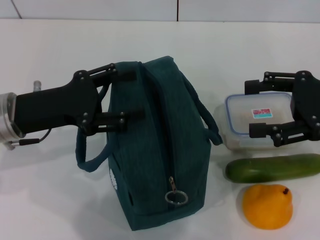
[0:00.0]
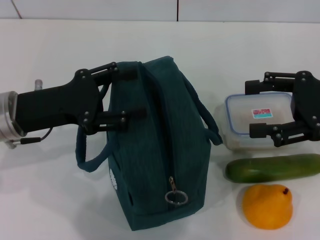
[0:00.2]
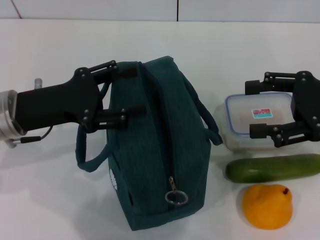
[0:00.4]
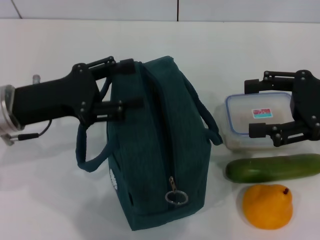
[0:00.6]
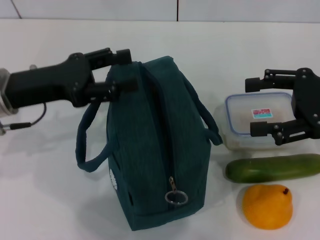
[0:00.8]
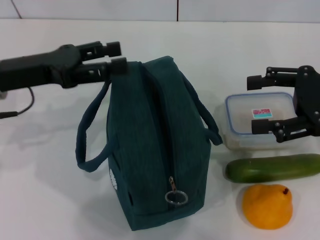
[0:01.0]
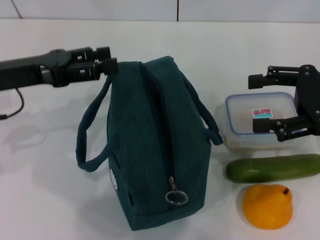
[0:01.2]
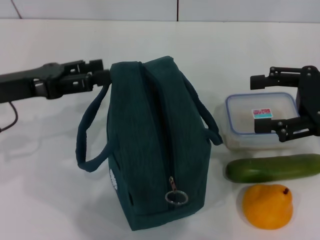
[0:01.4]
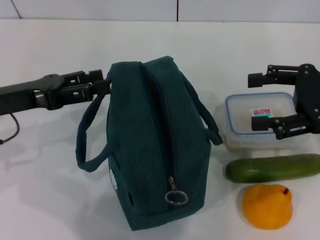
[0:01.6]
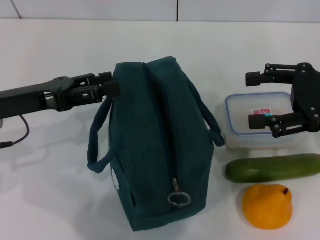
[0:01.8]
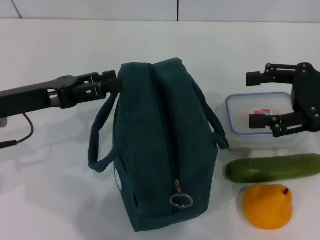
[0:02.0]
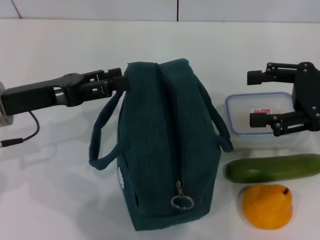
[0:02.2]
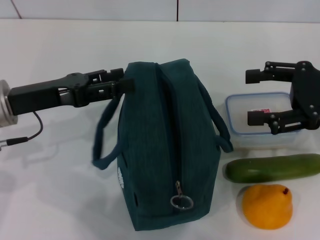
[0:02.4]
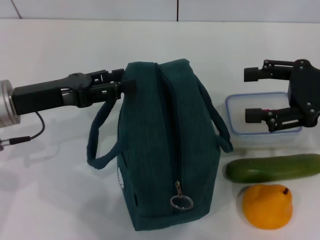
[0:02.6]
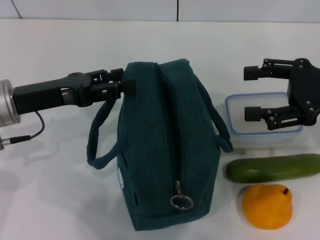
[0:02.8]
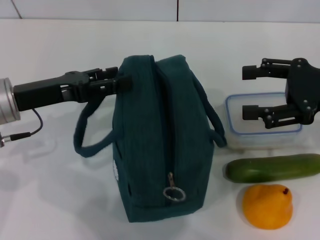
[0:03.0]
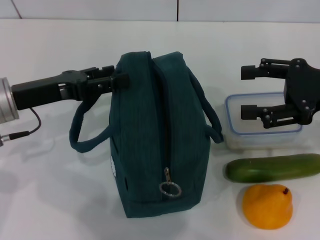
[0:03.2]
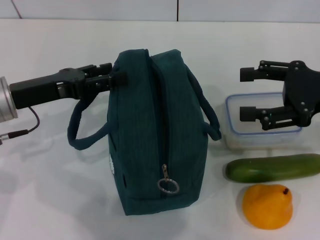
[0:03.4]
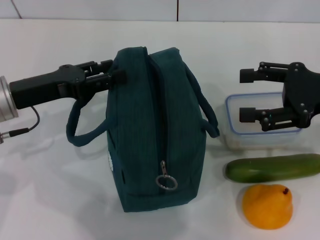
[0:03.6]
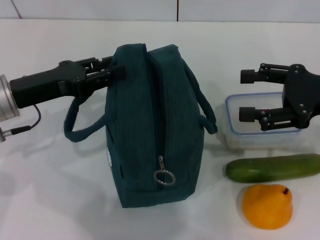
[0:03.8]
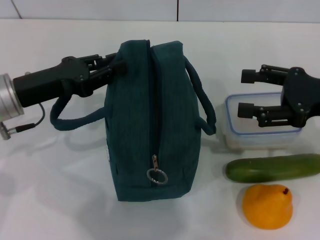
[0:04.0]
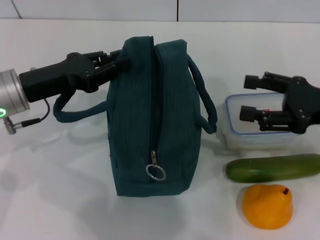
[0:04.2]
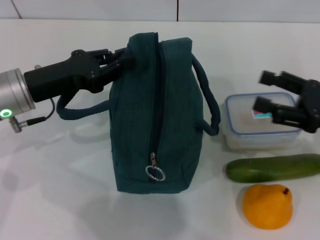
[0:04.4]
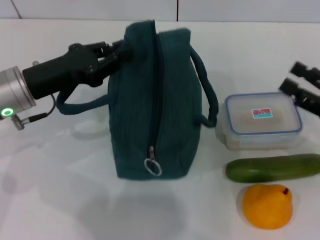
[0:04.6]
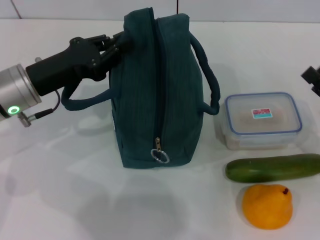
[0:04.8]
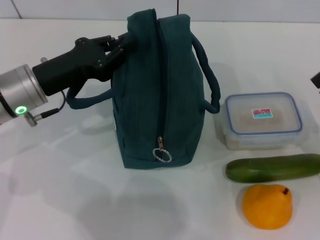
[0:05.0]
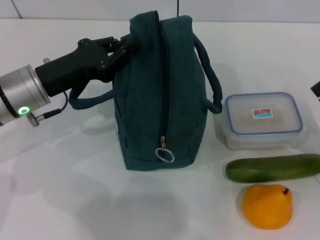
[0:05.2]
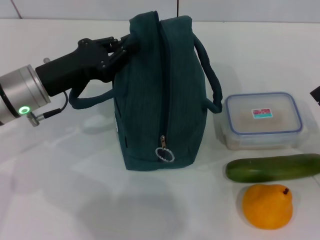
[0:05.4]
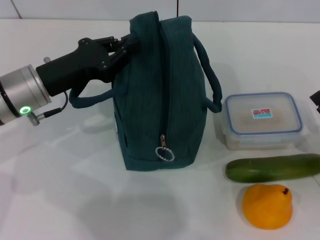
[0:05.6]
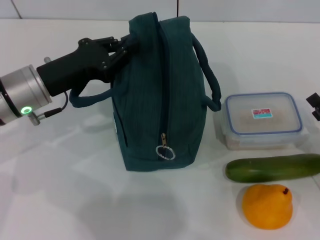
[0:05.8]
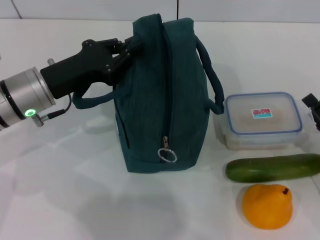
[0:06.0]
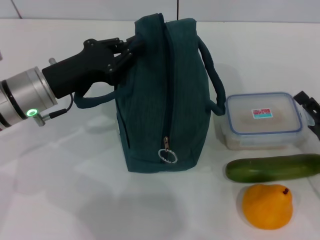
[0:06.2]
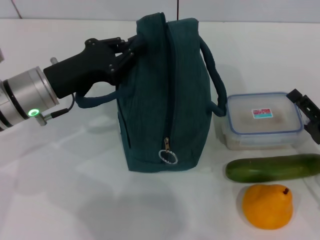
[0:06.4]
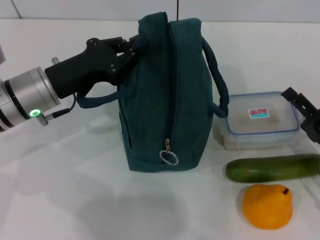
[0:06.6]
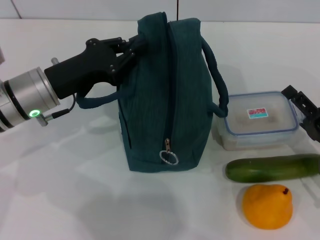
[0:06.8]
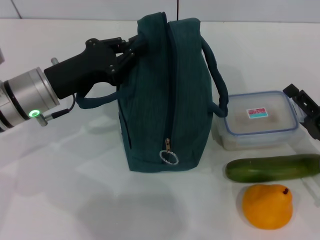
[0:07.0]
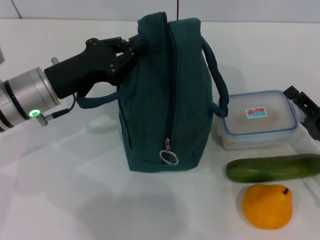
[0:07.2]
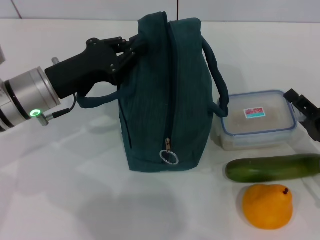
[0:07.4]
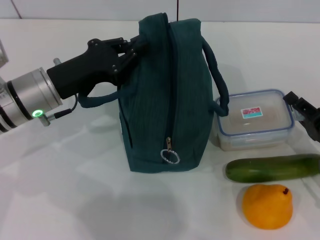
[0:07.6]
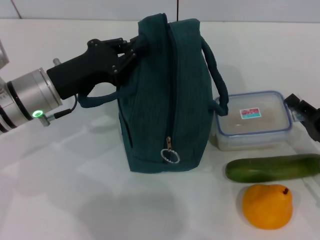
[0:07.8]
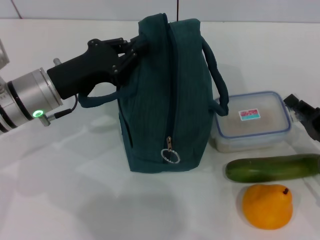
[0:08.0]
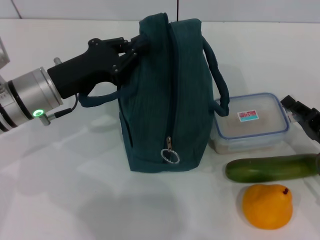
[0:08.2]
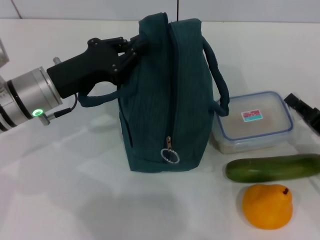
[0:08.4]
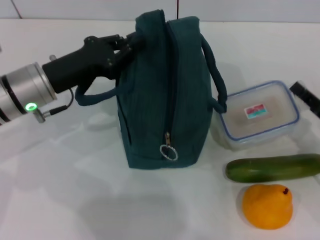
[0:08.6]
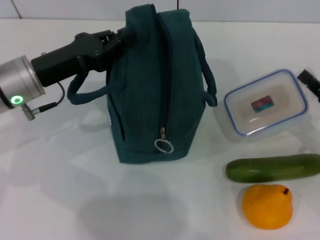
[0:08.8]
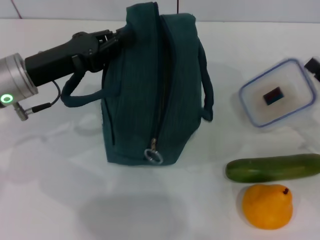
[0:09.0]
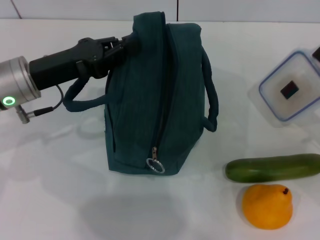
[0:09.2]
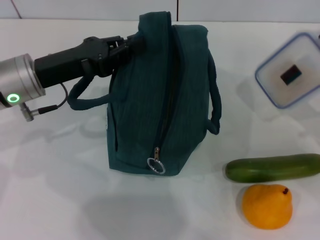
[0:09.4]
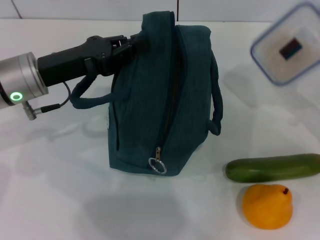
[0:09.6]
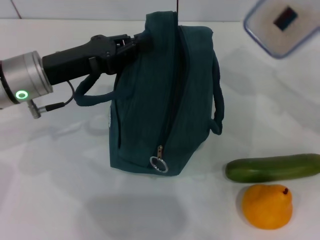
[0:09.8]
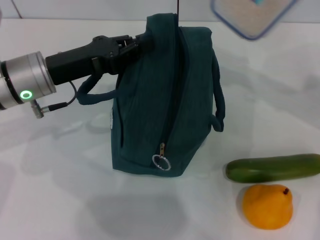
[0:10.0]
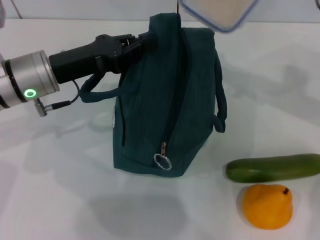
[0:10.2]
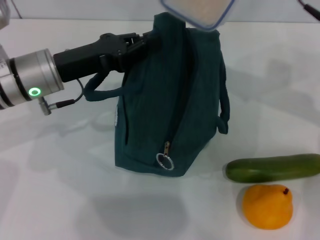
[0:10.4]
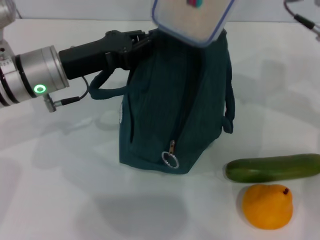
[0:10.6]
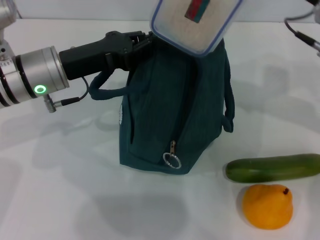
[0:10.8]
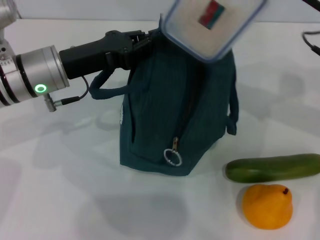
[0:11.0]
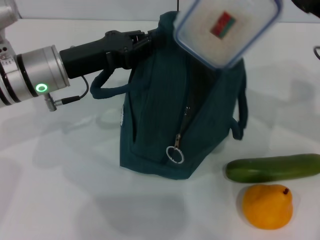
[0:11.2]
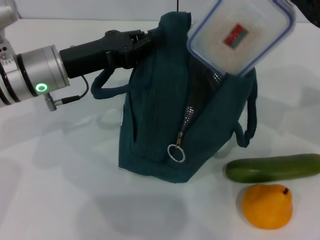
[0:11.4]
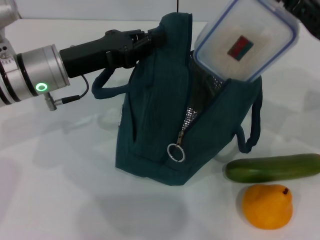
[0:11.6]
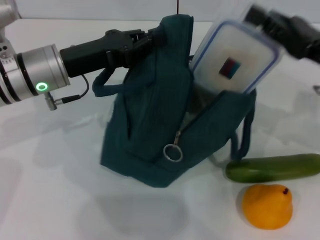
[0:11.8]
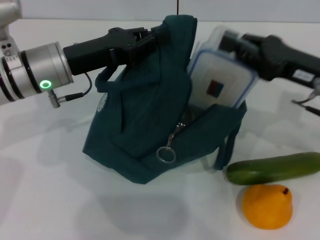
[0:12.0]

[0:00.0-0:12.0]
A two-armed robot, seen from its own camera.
Step, 0:00.0 to 0:04.2: Hold the lunch bag with your left hand.
Step, 0:04.4 to 0:08.0: Pick up the lunch box with your right hand.
0:01.6 to 0:03.0: The grippers move only a little.
0:03.0 to 0:04.4: The left gripper closes its fingers. Meanwhile the right gripper moves downward, roughly 5 cm.
0:04.4 to 0:06.0: The right gripper is displaced downward and backward by roughly 10 cm.
0:06.0 to 0:07.6: The right gripper closes its fingers.
0:07.6 to 0:09.0: The right gripper shifts by approximately 5 cm, and closes up.
0:09.0 to 0:10.4: The right gripper travels upward, to the left and forward by some 25 cm.
0:10.4 to 0:12.0: The right gripper shifts approximately 10 cm downward and backward.

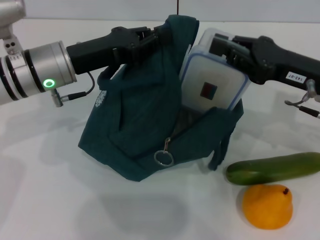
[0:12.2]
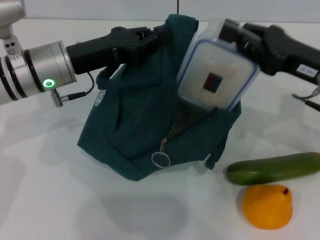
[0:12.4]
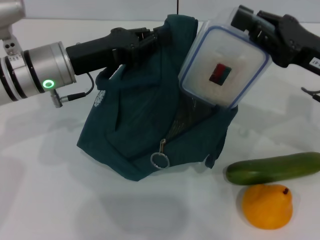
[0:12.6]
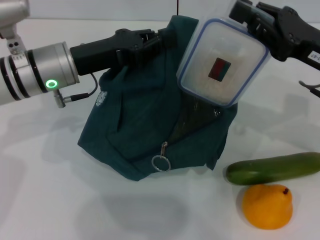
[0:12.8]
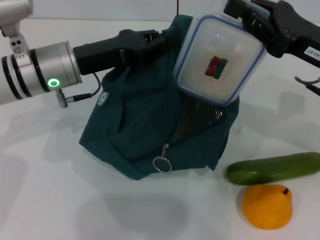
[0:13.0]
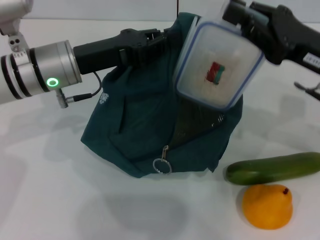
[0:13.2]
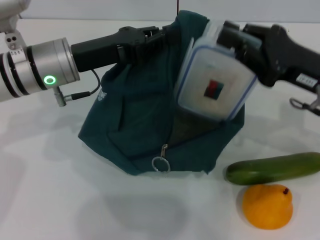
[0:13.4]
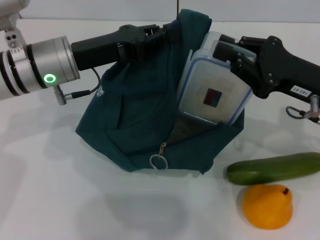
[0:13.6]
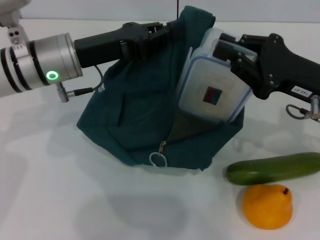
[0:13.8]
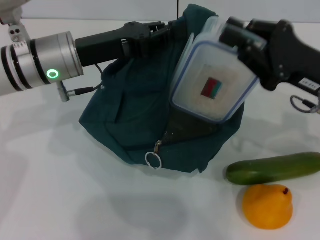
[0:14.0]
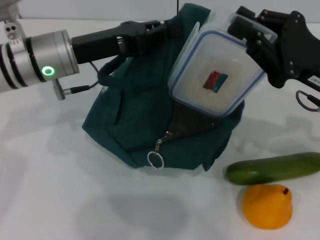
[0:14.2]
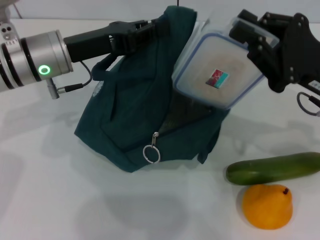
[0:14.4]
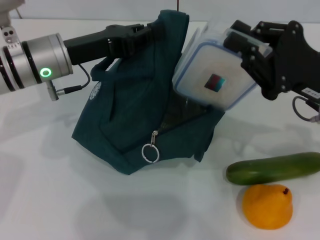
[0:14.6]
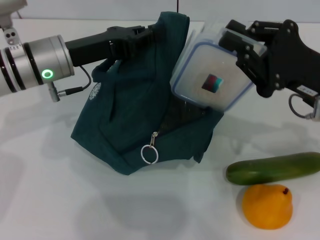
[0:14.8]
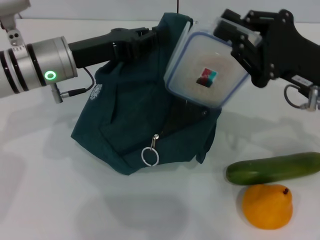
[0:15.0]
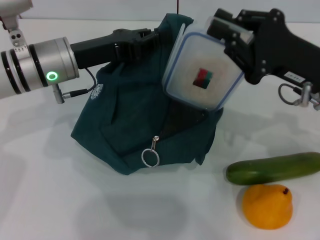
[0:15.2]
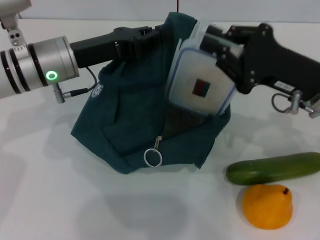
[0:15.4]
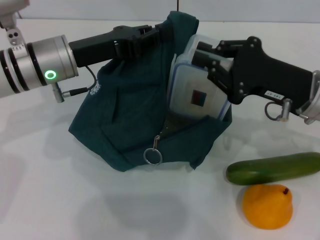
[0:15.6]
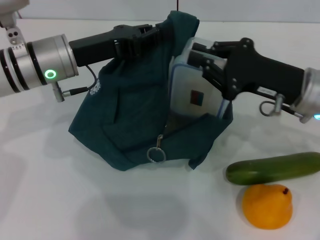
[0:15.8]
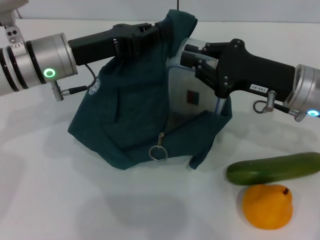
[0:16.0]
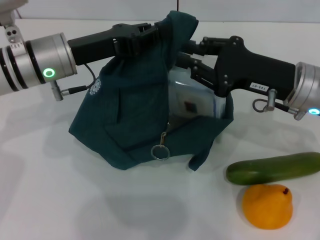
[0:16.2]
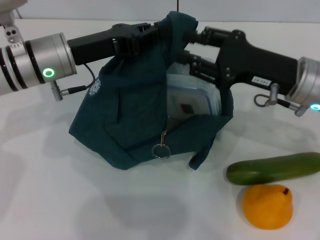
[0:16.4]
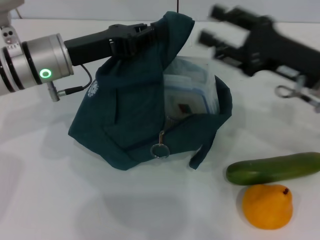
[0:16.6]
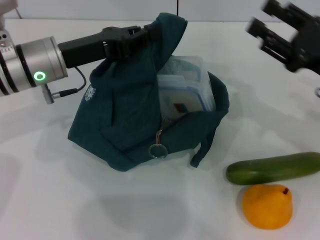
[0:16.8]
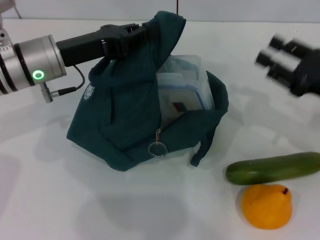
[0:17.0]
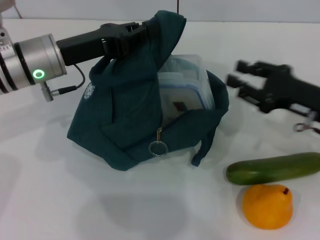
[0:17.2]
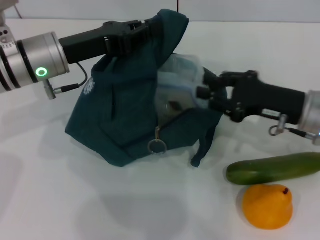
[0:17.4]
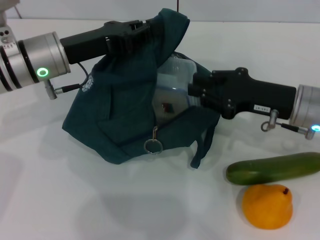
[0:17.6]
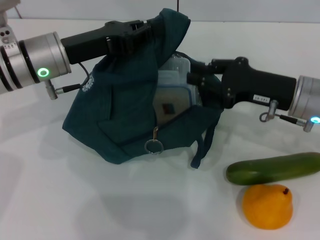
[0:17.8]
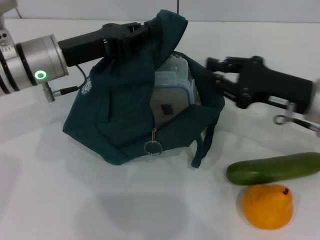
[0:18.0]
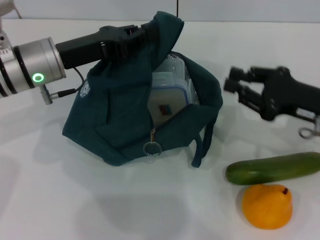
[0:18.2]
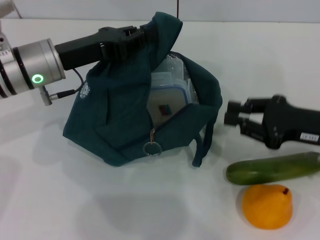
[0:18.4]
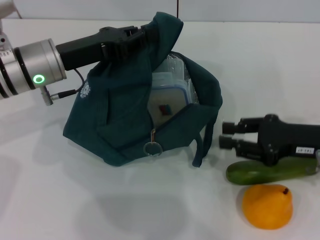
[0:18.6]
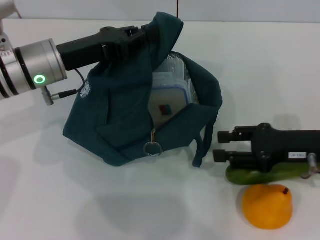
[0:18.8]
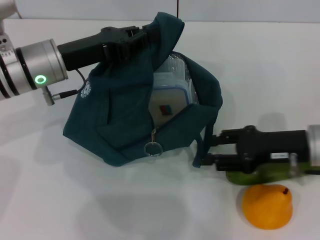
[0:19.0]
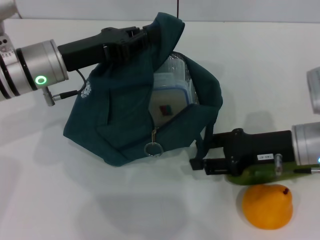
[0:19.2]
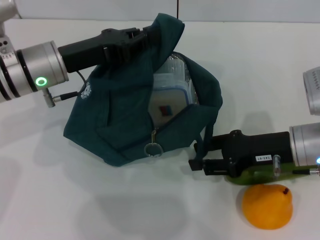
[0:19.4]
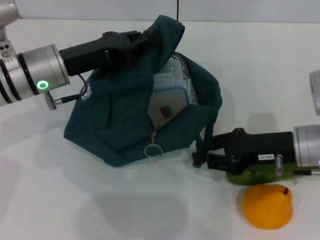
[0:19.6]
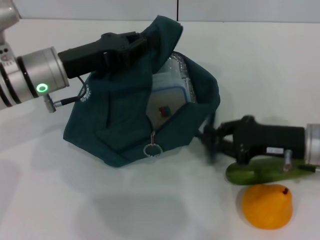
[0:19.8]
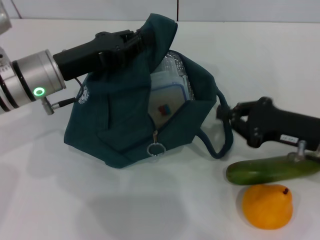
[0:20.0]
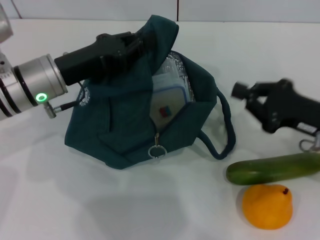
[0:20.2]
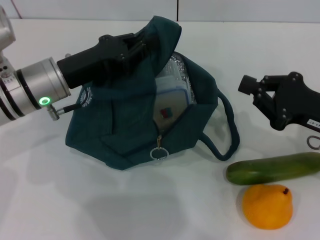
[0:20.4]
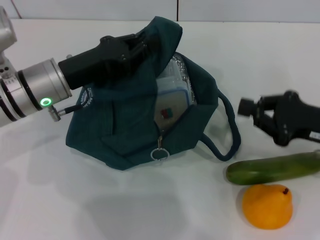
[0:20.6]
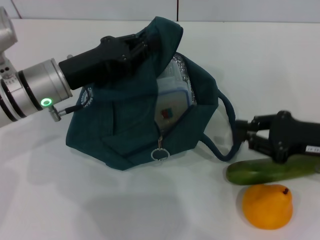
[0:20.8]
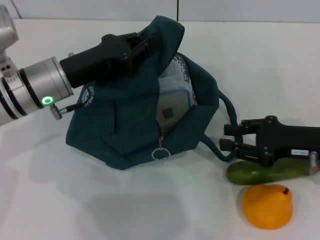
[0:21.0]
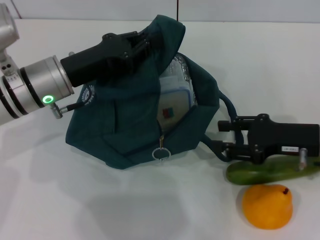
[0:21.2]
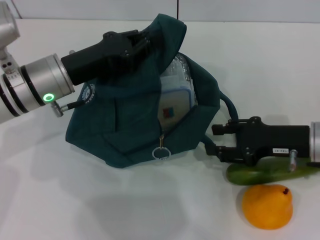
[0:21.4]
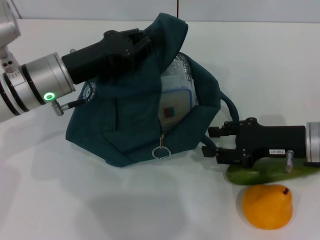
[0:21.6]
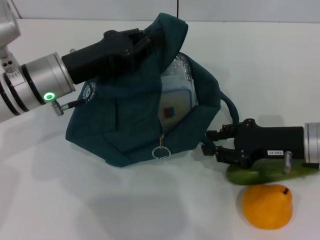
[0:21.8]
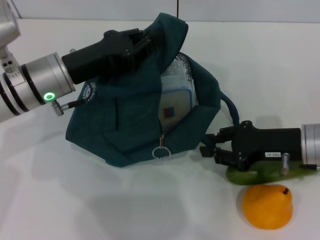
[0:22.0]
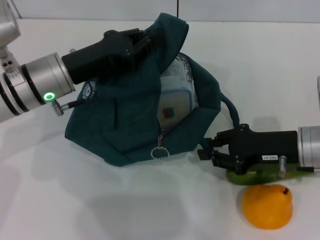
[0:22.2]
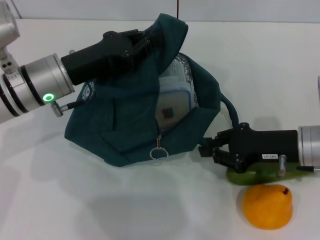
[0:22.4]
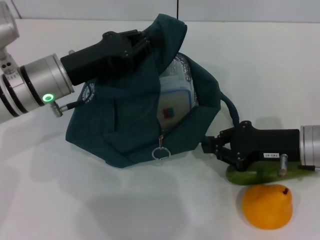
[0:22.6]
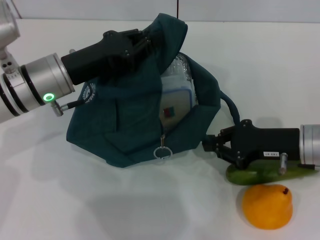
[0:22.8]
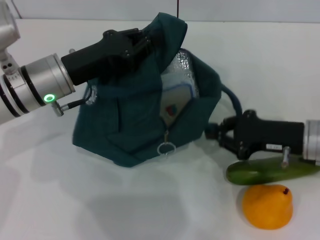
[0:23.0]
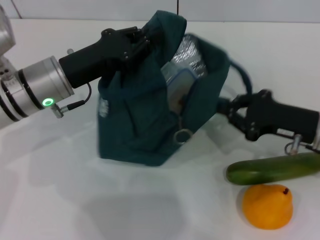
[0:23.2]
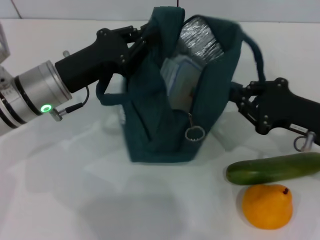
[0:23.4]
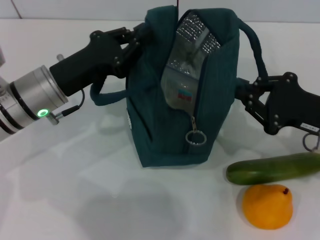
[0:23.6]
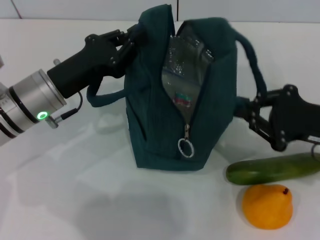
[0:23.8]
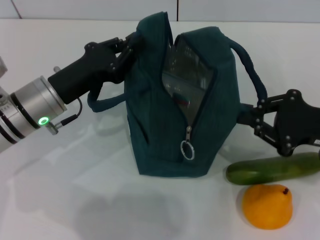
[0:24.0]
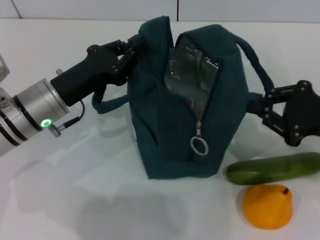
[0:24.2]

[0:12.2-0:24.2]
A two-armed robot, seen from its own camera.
Step, 0:12.2 to 0:16.4: Place the lunch box into the lunch bag with your right hand.
0:12.2 to 0:13.8: The grippers move only a little.
0:15.2 to 0:16.6: There are only small adjustments of the grippers.
0:16.6 to 0:18.2: The right gripper swings left and right, roughly 10 cm each way, with 2 reversals.
0:19.8 to 0:21.2: The right gripper closes and opens again.
0:21.2 to 0:22.6: The grippers move only a little.
0:22.6 to 0:24.2: The right gripper moves to the right and upward, some 10 cm.
